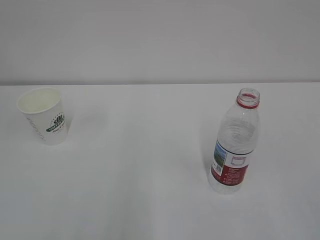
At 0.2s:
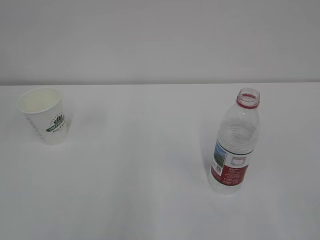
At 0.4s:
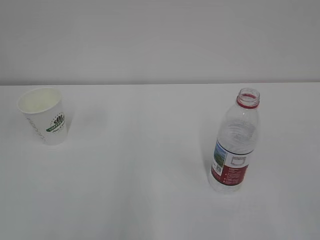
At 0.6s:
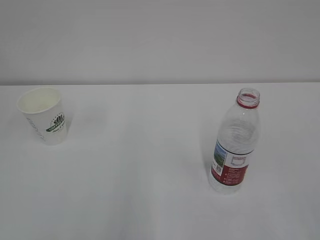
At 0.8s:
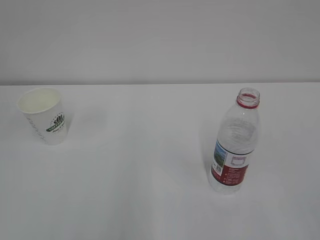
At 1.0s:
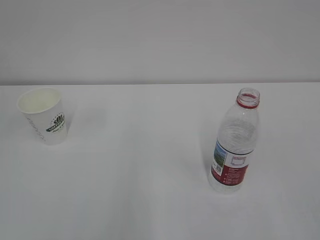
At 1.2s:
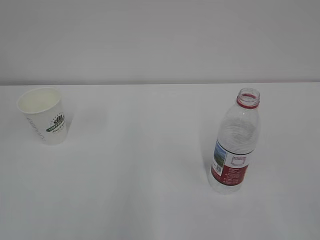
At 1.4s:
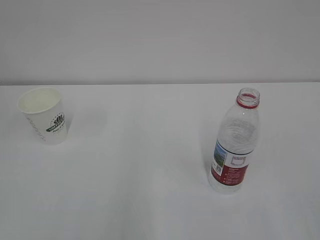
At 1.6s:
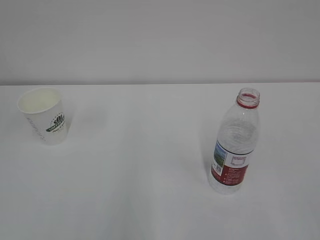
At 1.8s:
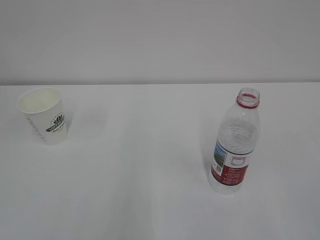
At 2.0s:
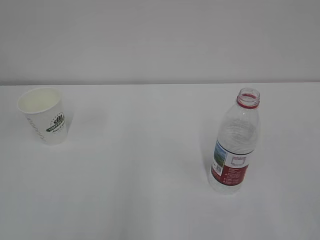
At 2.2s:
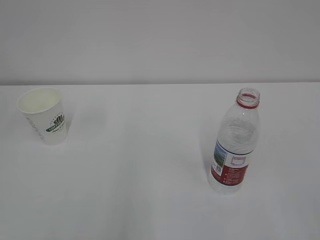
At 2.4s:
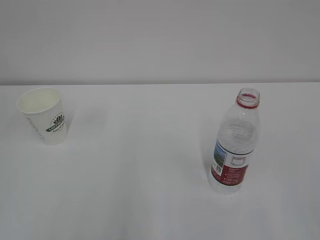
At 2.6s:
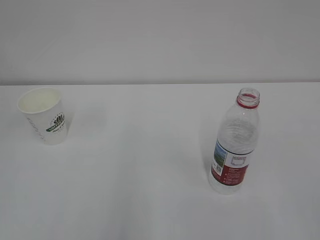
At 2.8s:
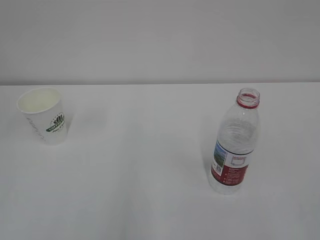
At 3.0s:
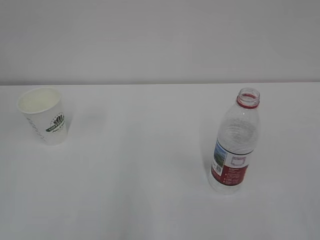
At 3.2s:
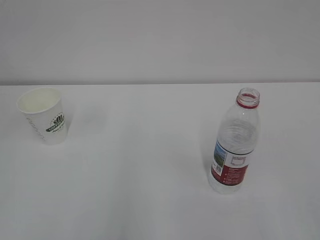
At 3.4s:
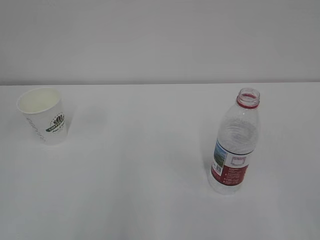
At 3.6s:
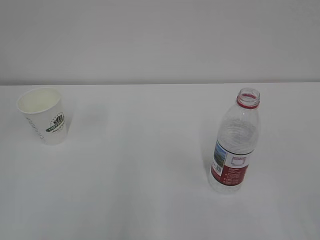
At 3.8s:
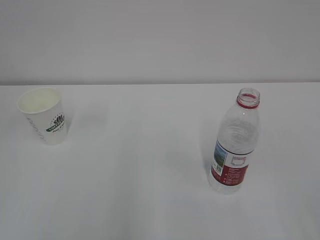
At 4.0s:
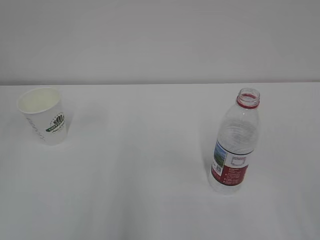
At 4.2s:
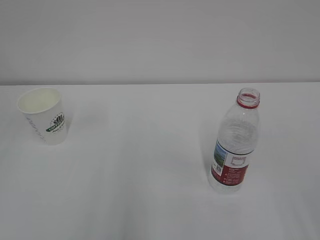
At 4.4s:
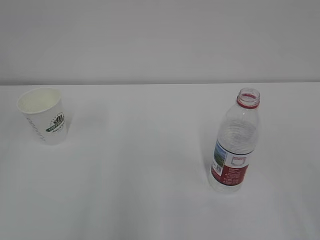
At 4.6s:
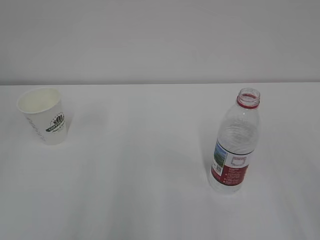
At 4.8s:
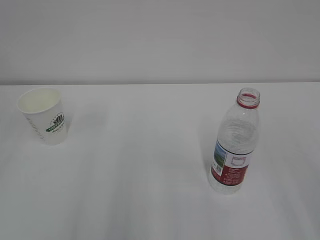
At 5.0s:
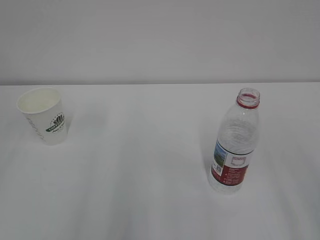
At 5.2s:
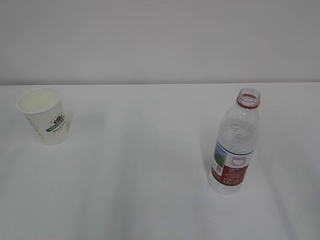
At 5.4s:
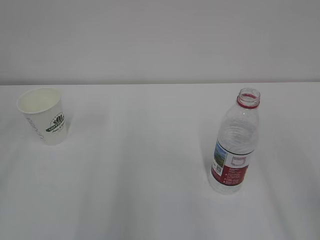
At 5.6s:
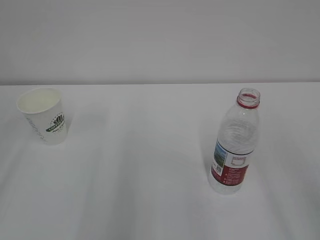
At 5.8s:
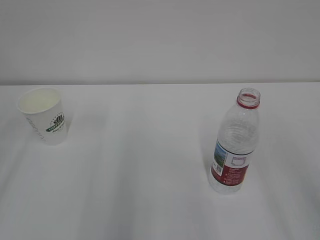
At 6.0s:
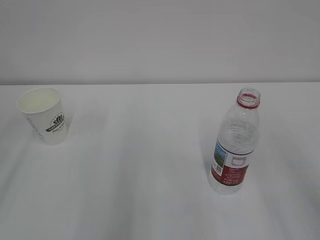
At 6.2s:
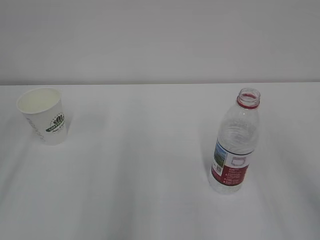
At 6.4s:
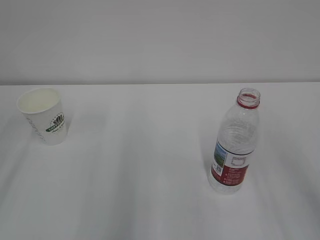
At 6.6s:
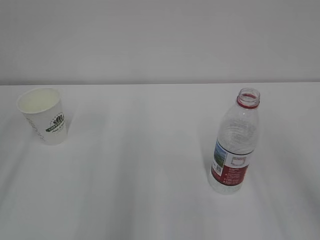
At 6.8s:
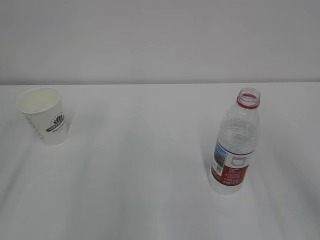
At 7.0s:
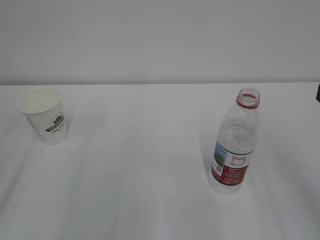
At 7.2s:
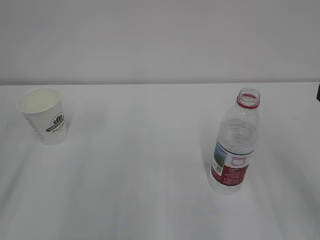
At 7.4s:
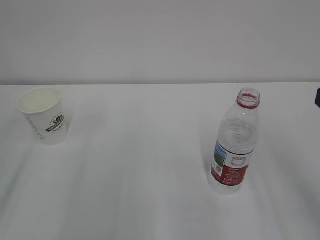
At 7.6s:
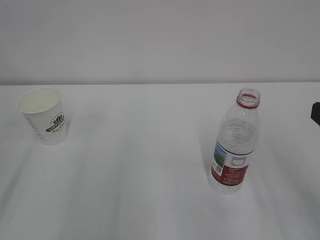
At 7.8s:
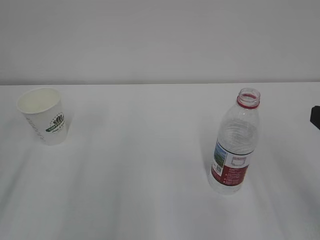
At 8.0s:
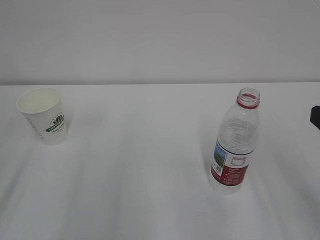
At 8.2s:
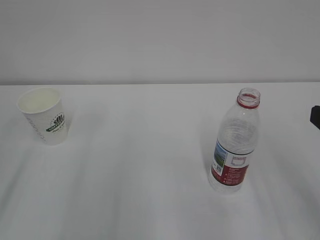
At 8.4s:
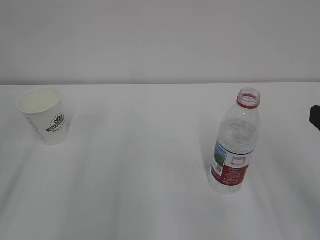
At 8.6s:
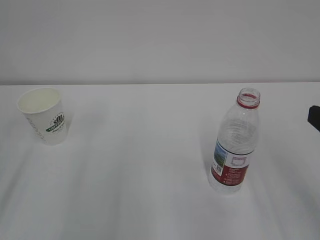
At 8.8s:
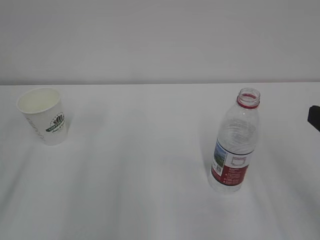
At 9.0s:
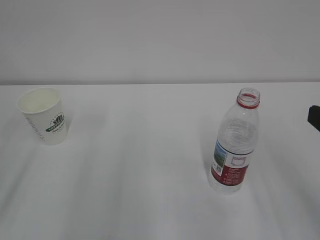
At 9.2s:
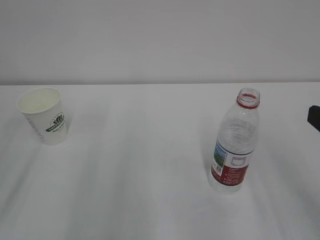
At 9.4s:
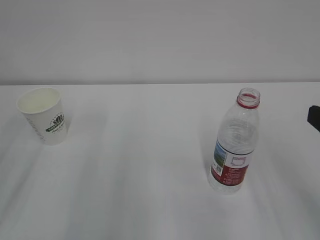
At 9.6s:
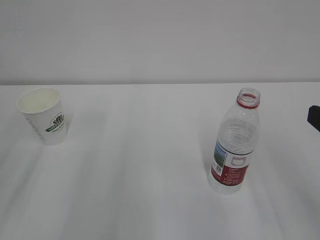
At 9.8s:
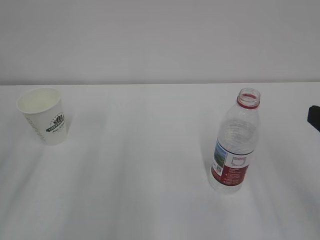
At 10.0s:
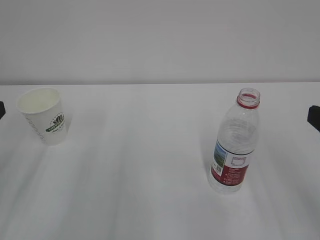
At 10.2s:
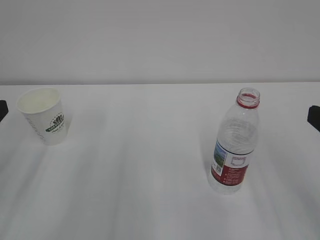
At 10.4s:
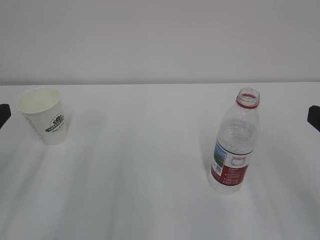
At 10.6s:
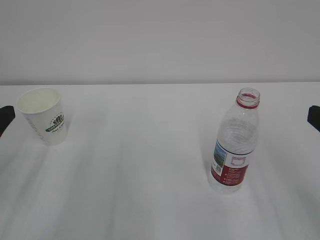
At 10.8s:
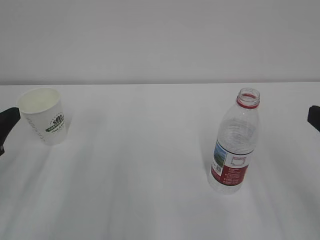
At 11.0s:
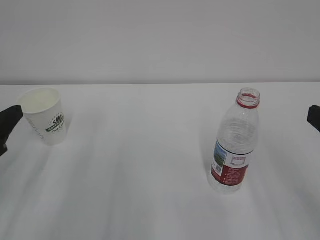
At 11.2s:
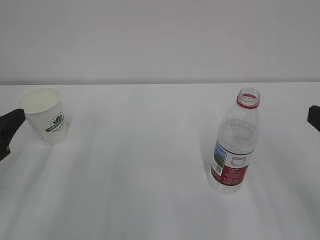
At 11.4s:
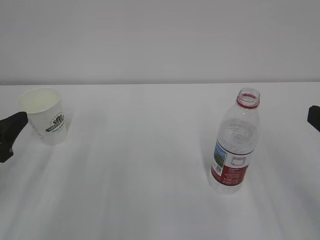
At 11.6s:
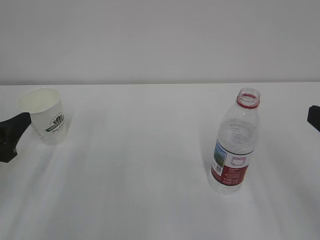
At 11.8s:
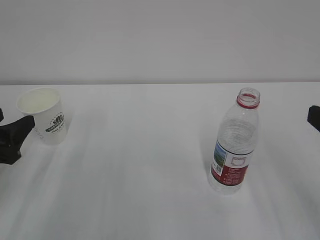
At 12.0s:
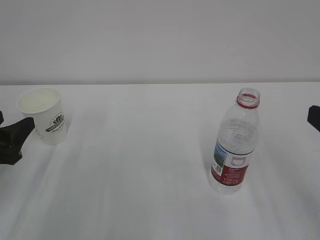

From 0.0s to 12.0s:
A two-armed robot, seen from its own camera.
From 1.6s to 3.0s: Both grippers stay about where they are.
From 10.4s to 12.0s: The left gripper heads downward, covering approximately 5 cm.

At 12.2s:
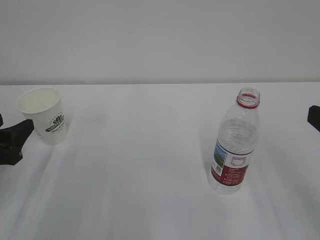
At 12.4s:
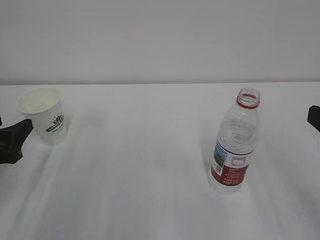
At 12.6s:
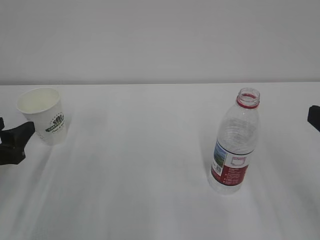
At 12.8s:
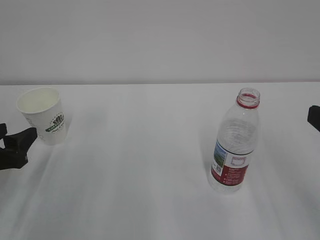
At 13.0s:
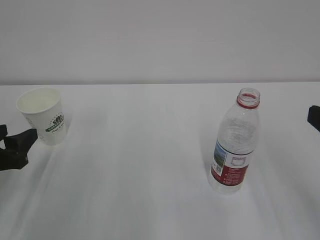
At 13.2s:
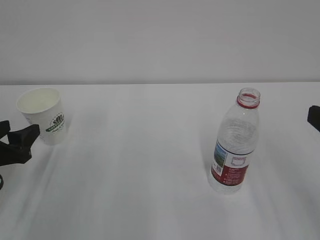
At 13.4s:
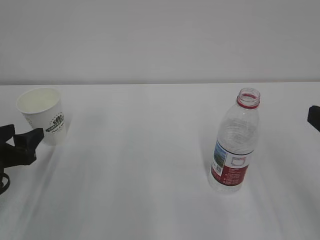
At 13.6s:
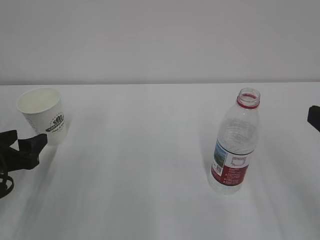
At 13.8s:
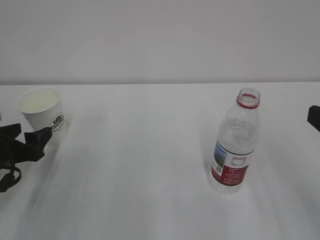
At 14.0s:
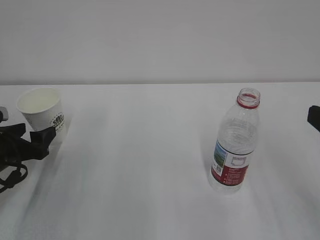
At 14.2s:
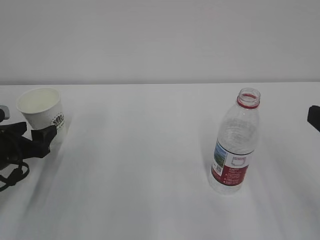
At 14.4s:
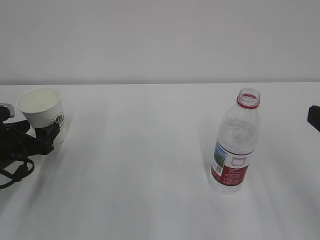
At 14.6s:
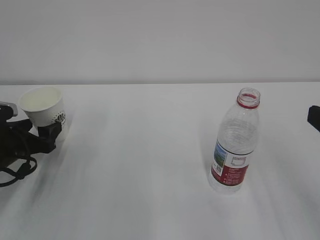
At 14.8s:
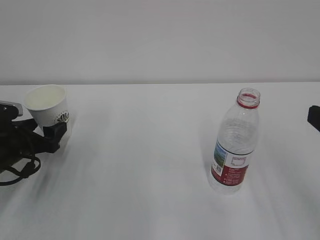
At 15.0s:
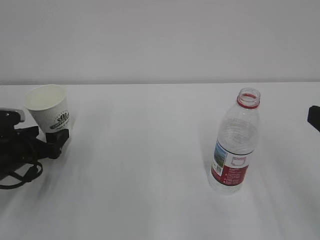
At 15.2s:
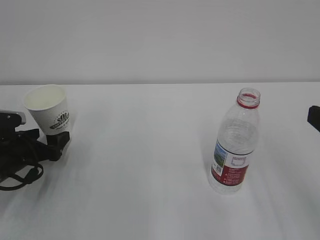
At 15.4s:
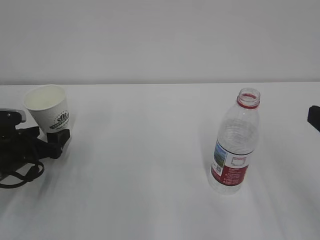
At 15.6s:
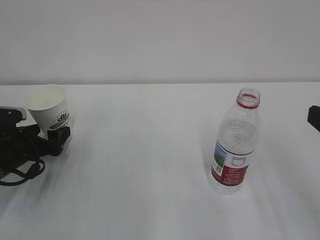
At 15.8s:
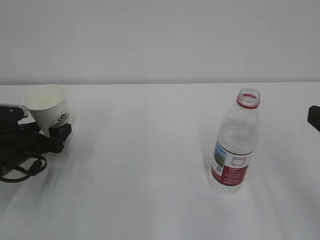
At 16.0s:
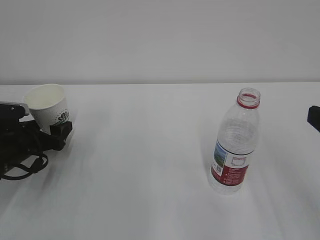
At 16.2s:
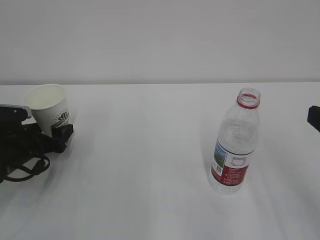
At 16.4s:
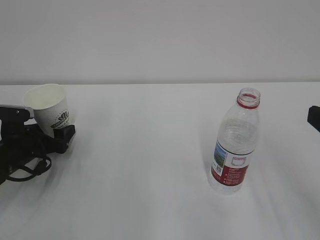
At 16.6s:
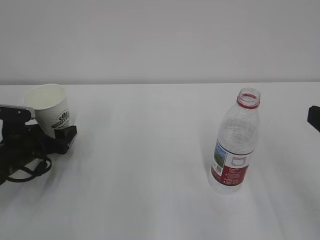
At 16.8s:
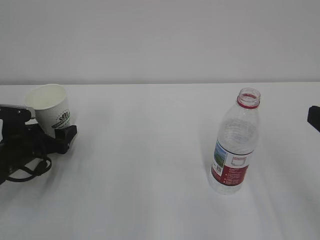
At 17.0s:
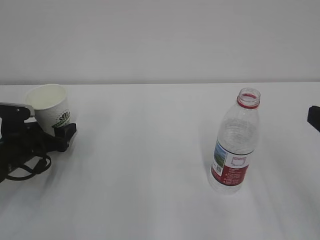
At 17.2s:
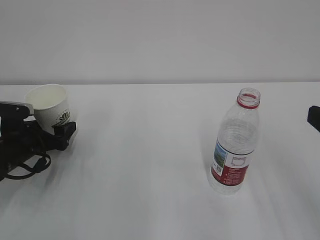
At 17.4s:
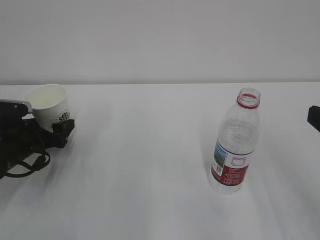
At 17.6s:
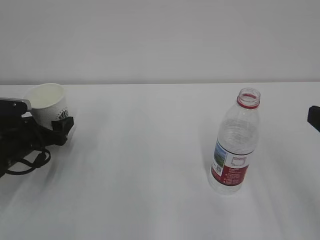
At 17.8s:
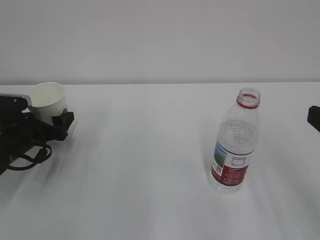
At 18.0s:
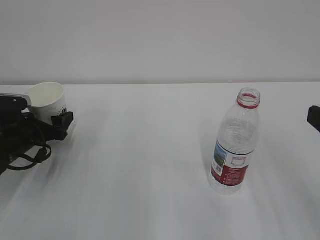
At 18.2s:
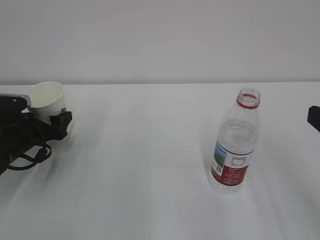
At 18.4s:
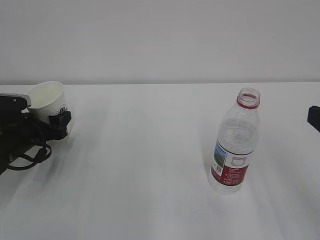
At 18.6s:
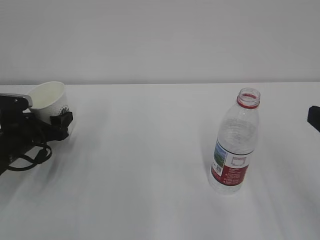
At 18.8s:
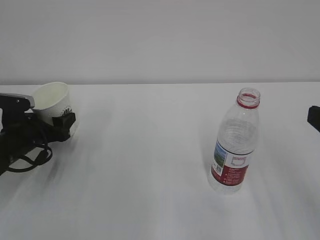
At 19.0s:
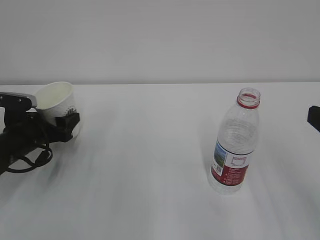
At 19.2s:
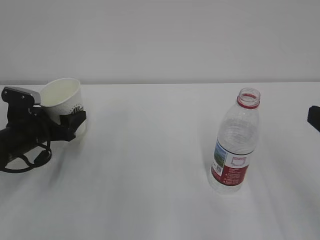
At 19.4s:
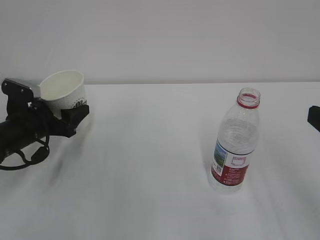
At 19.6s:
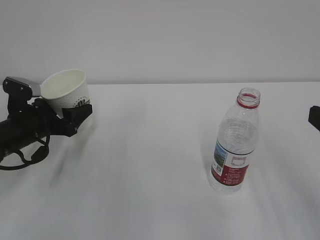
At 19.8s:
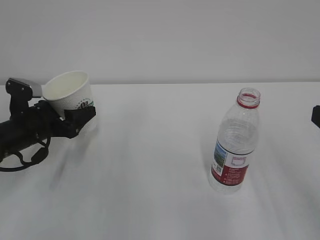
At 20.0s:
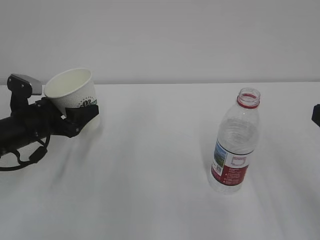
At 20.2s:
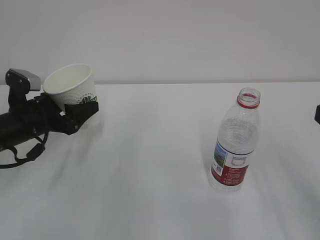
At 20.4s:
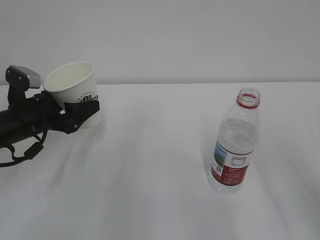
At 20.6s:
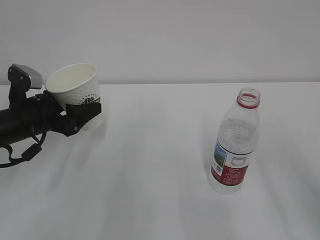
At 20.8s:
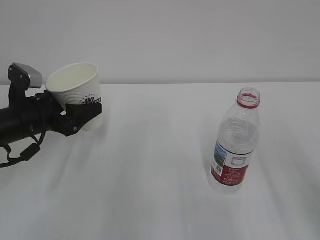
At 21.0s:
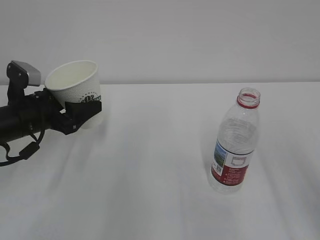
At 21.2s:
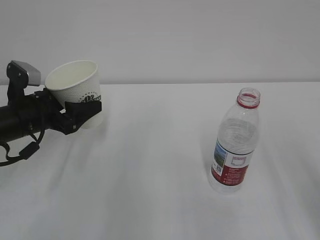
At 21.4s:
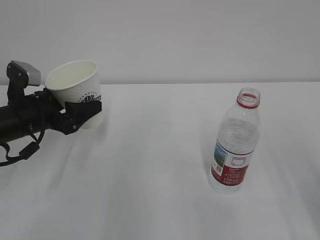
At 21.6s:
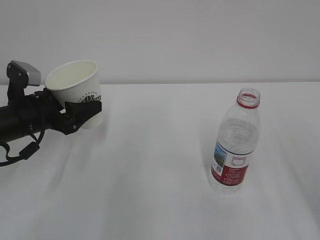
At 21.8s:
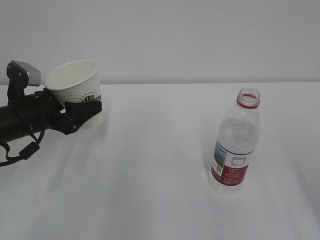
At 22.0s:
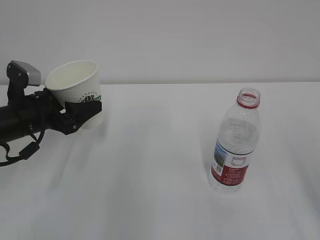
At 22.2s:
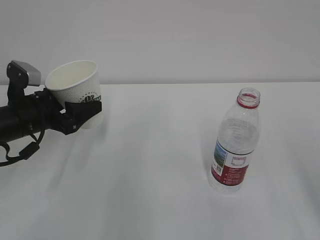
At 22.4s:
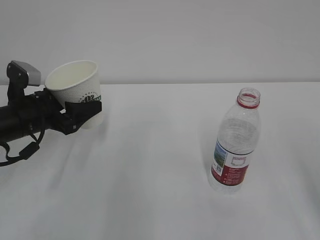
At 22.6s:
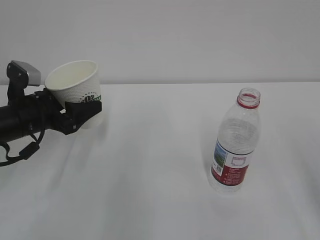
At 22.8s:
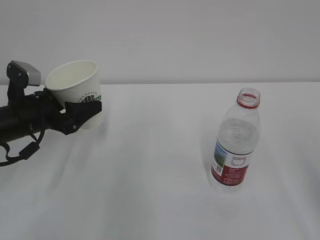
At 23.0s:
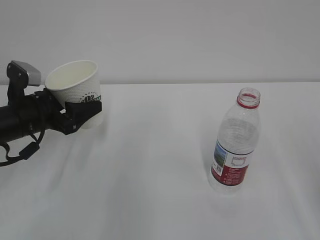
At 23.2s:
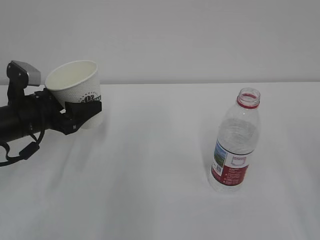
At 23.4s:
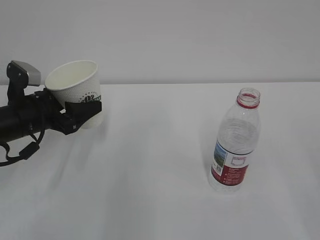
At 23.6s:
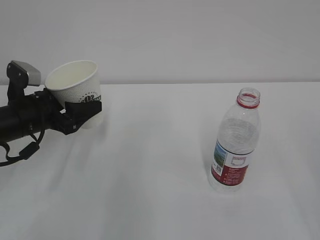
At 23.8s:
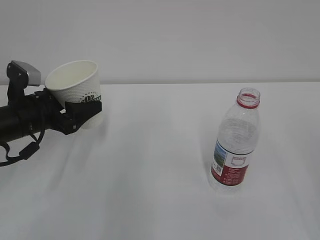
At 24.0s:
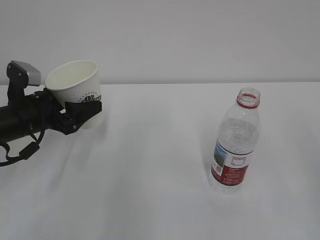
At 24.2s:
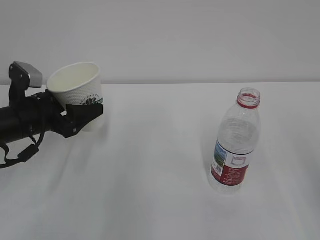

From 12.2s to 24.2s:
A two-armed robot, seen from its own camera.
From 12.2s to 13.8s: The left gripper moves some 5 cm.
From 13.8s to 15.2s: The left gripper changes place by approximately 5 cm.
From 15.2s to 18.2s: The grippers stay close to where they were, moving slightly.
From 18.2s to 19.8s: The left gripper shifts by about 5 cm.
